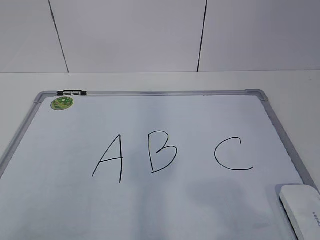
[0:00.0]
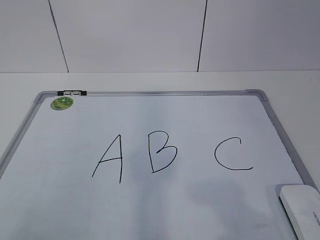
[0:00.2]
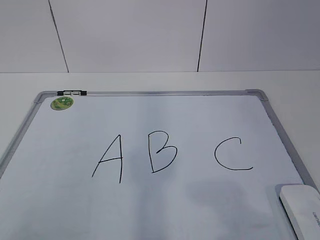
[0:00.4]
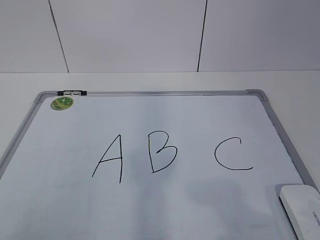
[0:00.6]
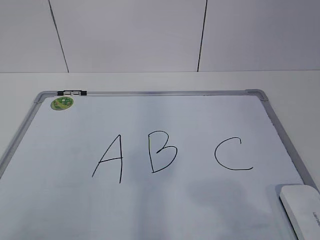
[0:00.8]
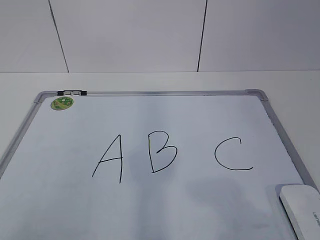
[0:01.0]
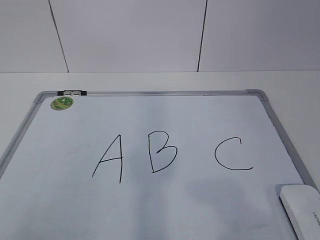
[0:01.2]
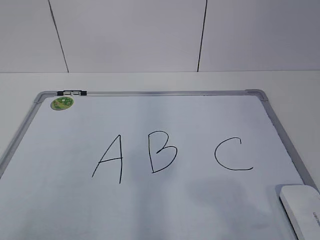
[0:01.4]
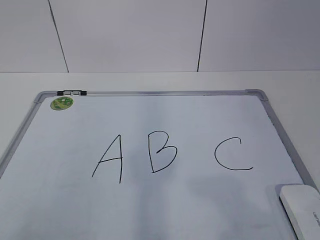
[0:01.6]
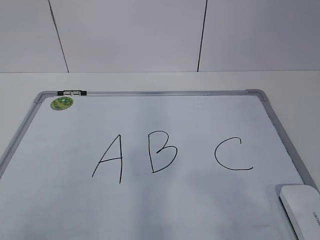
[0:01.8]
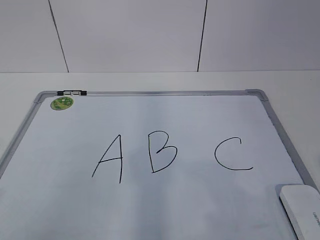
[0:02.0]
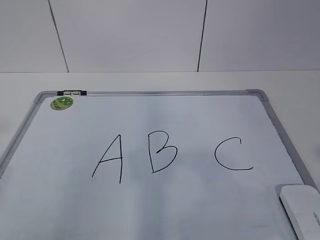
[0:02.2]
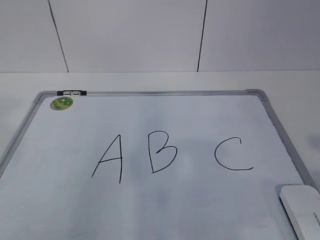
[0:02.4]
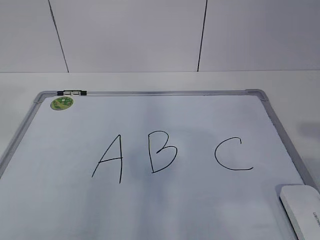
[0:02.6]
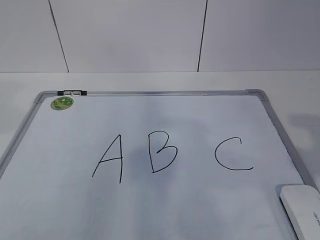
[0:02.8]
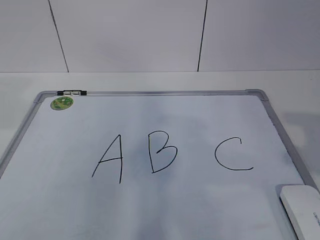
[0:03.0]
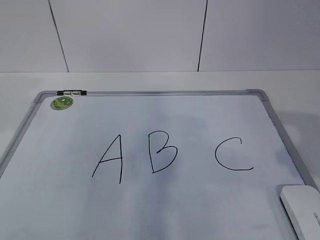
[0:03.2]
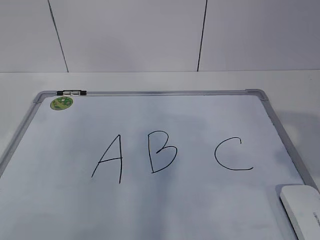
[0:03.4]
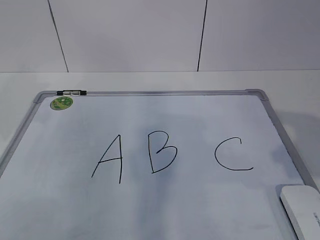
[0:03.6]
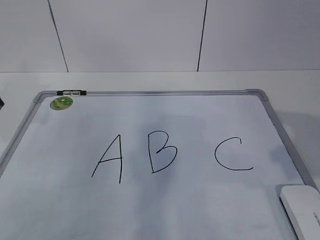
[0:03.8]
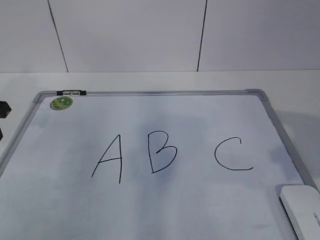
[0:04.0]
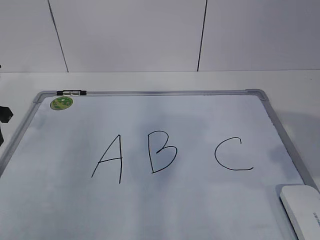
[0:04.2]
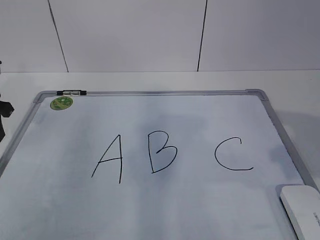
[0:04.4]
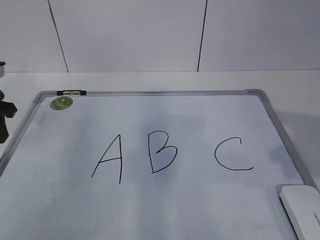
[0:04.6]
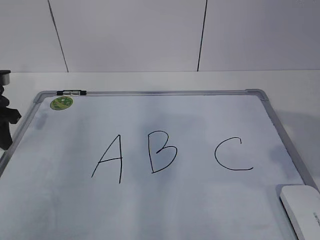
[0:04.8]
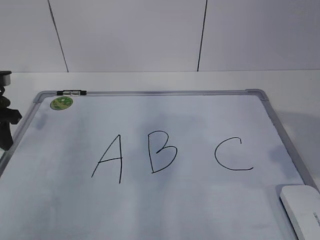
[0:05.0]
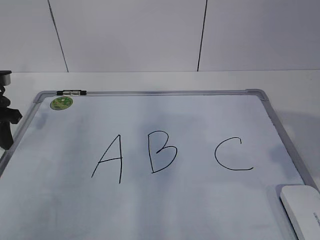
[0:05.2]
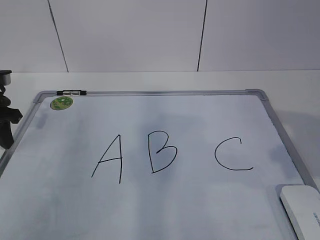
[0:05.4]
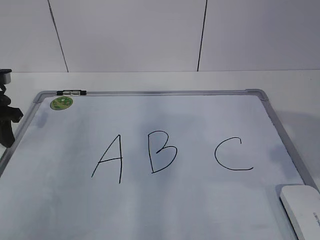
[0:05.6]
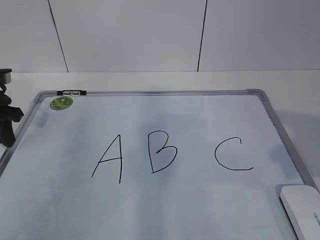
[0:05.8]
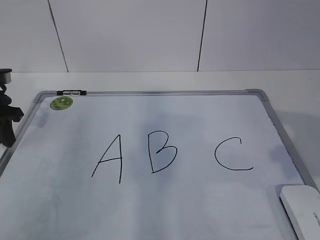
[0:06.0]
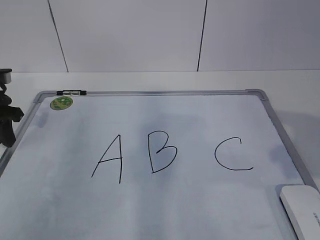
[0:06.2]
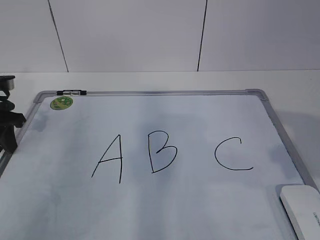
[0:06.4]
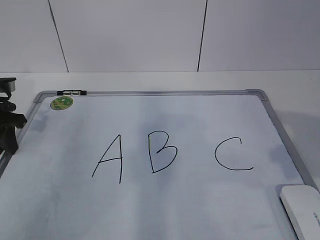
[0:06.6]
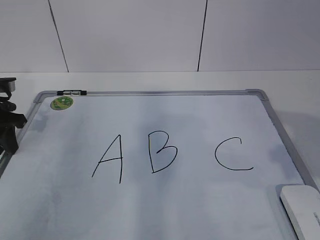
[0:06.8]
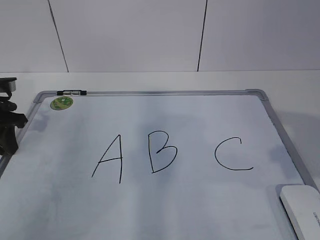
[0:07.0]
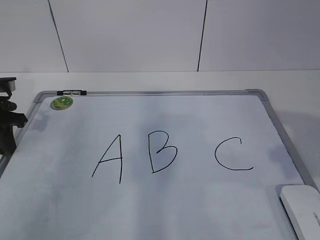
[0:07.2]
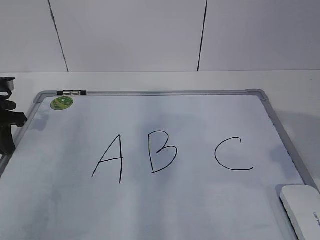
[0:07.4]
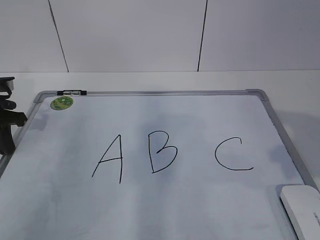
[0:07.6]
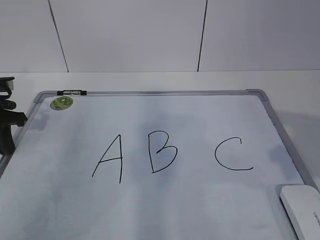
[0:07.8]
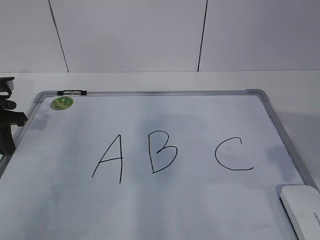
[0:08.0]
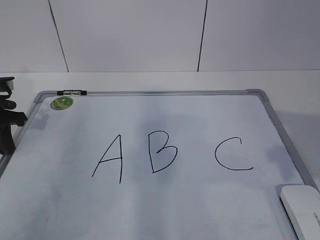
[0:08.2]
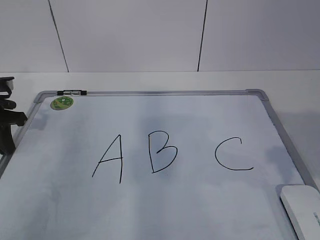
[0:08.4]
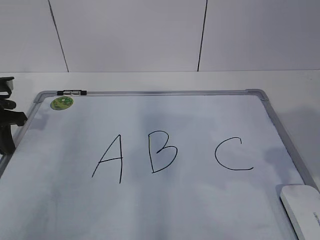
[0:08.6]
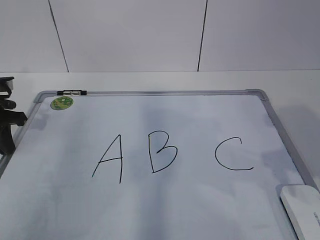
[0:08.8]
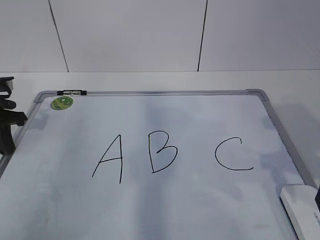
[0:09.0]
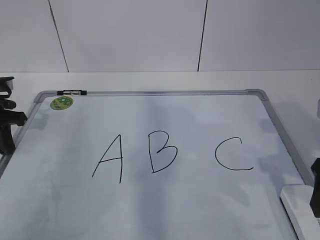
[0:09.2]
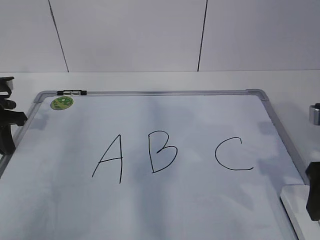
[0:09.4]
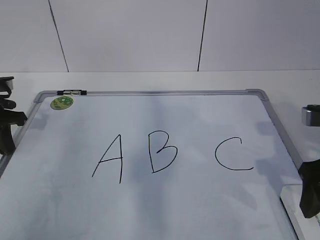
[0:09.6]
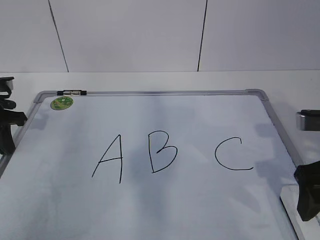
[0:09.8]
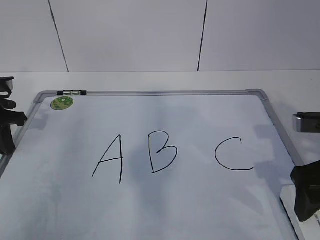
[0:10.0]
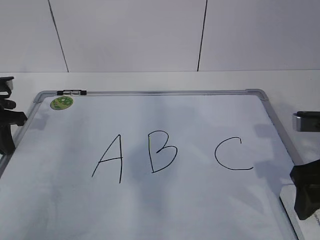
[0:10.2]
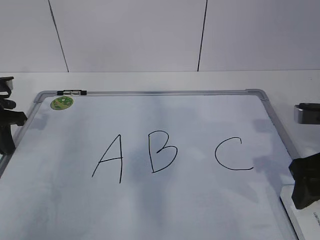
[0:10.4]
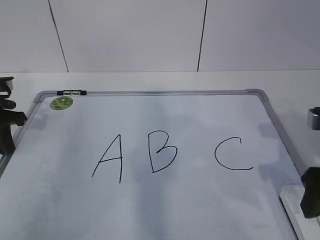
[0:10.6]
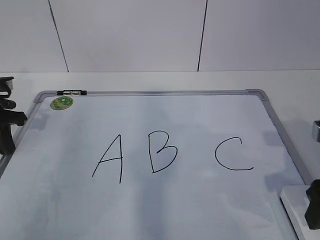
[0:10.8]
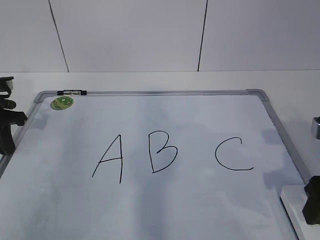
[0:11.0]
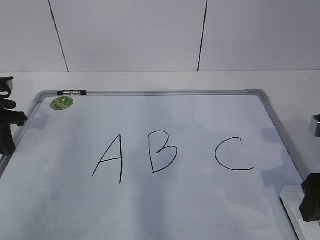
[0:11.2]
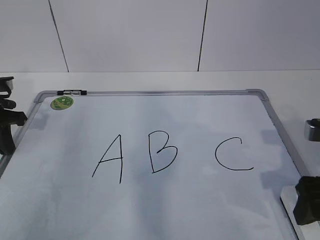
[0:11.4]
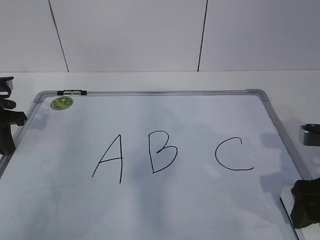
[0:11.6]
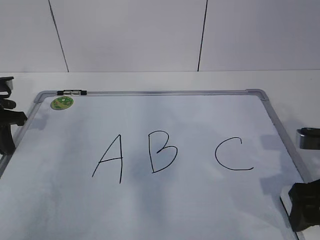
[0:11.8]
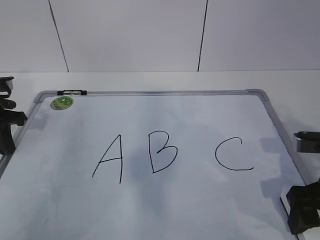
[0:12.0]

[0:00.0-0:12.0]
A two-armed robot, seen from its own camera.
Task of the whole recording: pick up the eraser on the blackboard and erase the letter "B".
Step, 0:06.4 to 0:10.6: Grab the eraser with your right hand.
0:01.6 to 0:03.0: The left gripper goes approximately 20 cm forward and upward. Meanwhile the right gripper heads forward and upward, covering about 10 cm.
0:03.0 to 0:04.4: The left gripper goes about 25 cm downward and forward.
0:04.4 to 0:06.0: There are only small adjustments of the grippers.
0:06.0 to 0:07.6: The left gripper closes up.
0:09.0 to 0:10.4: The right gripper changes place by roughly 5 cm, and closes.
0:10.4 to 0:12.0: The right gripper opens.

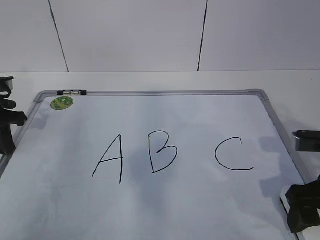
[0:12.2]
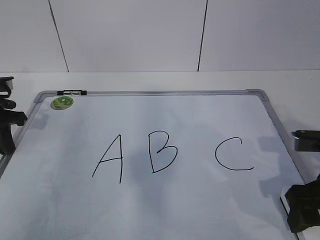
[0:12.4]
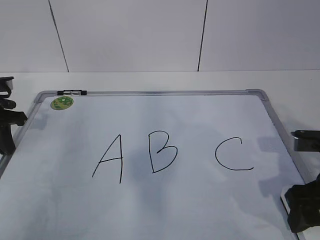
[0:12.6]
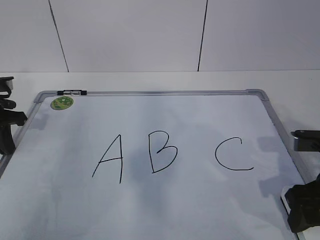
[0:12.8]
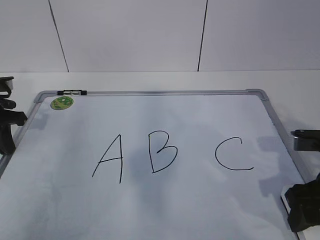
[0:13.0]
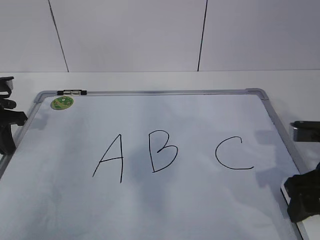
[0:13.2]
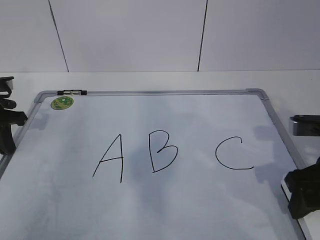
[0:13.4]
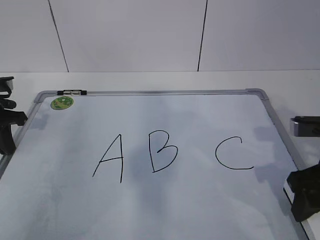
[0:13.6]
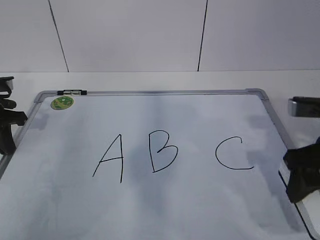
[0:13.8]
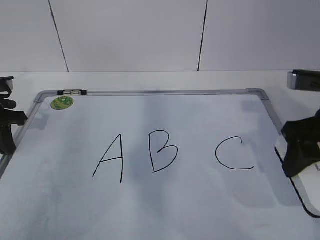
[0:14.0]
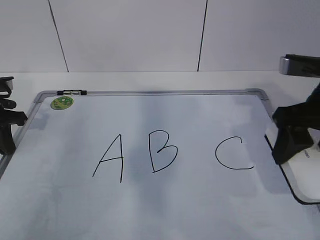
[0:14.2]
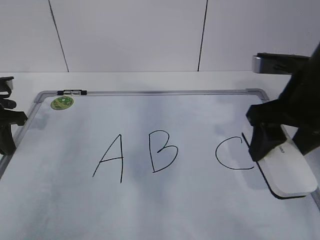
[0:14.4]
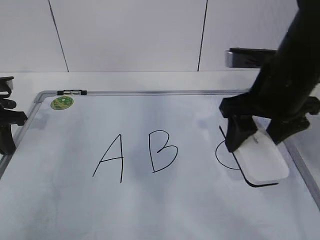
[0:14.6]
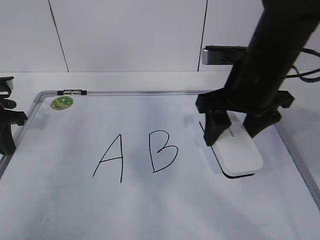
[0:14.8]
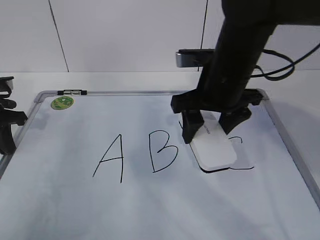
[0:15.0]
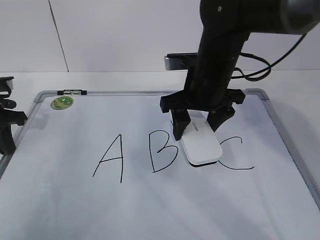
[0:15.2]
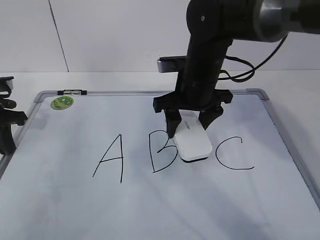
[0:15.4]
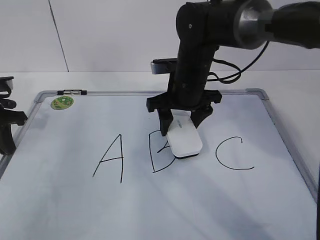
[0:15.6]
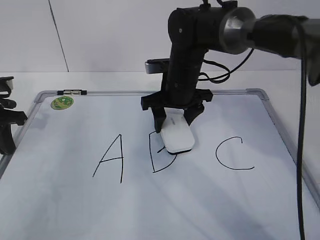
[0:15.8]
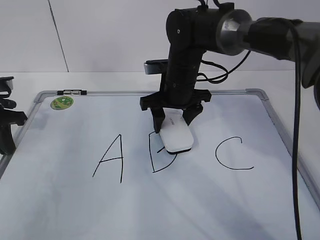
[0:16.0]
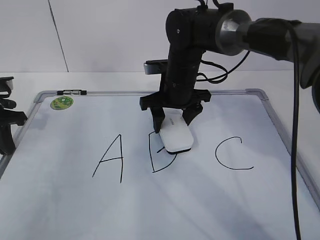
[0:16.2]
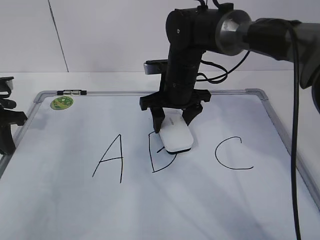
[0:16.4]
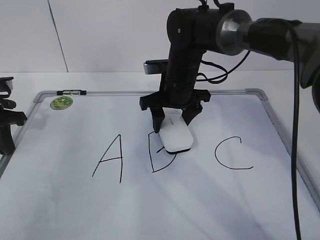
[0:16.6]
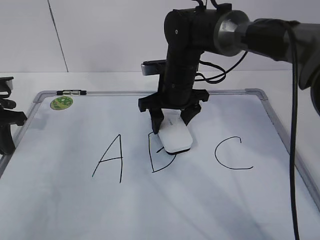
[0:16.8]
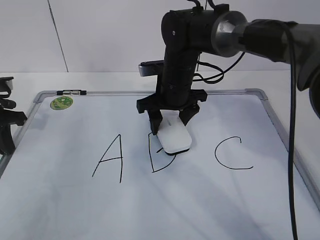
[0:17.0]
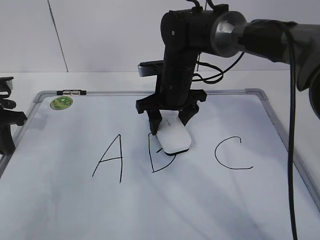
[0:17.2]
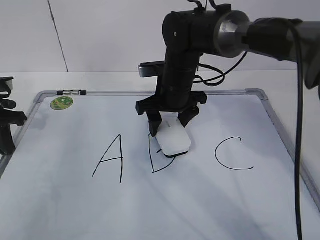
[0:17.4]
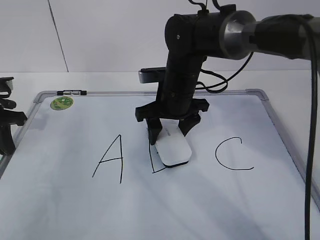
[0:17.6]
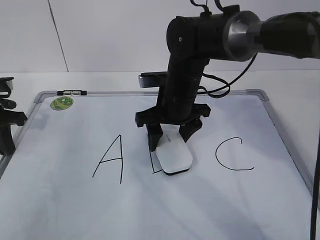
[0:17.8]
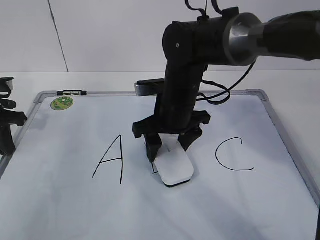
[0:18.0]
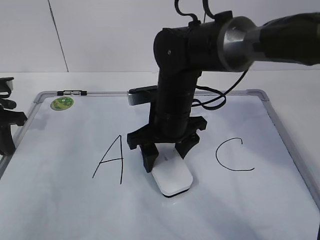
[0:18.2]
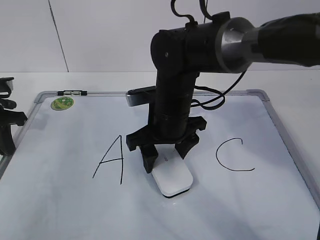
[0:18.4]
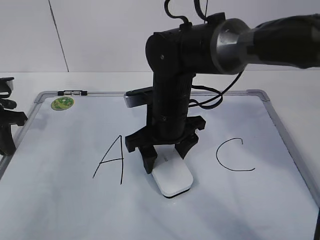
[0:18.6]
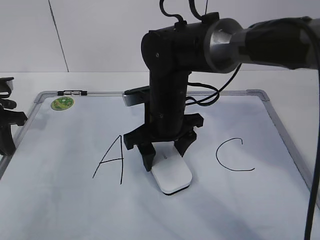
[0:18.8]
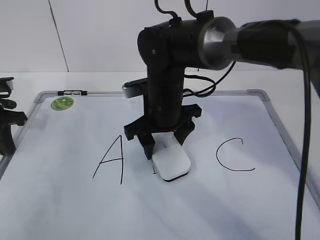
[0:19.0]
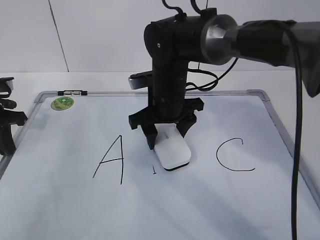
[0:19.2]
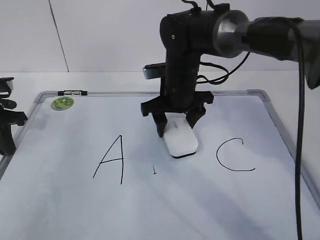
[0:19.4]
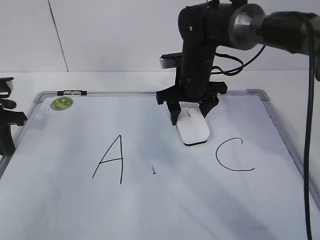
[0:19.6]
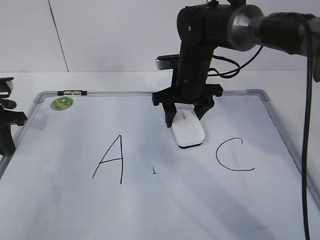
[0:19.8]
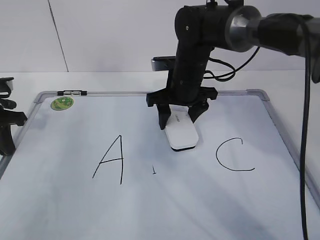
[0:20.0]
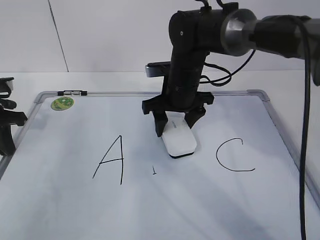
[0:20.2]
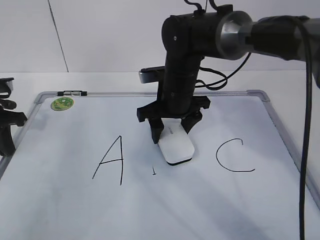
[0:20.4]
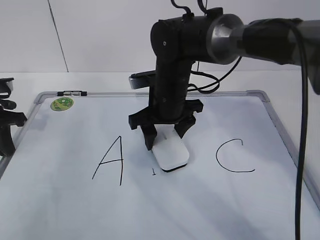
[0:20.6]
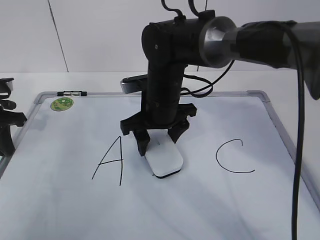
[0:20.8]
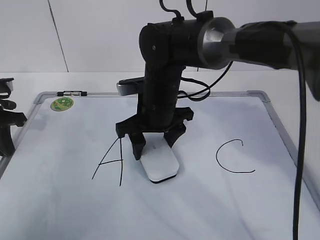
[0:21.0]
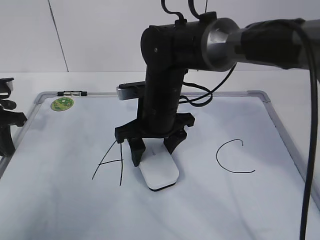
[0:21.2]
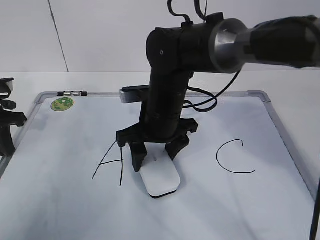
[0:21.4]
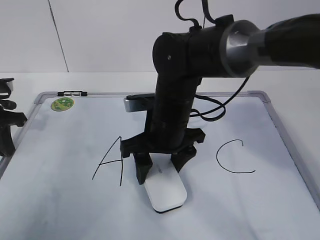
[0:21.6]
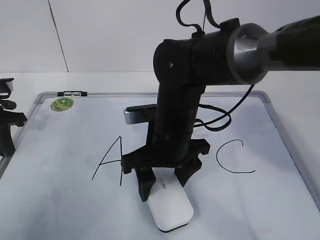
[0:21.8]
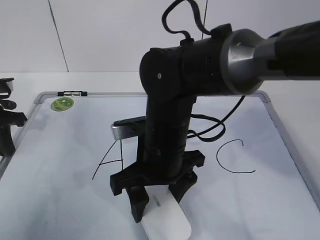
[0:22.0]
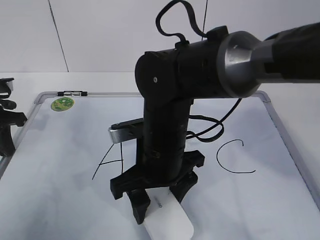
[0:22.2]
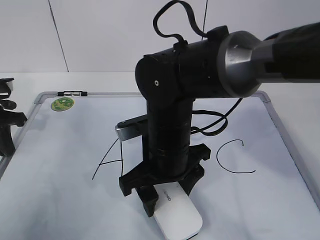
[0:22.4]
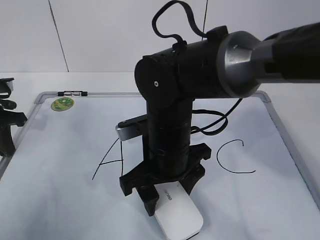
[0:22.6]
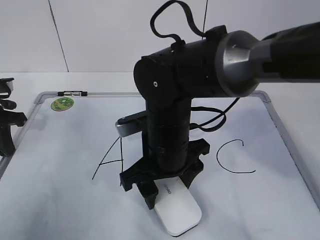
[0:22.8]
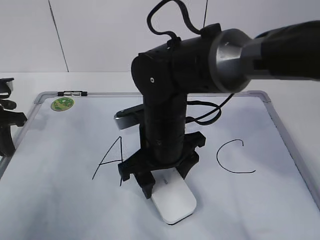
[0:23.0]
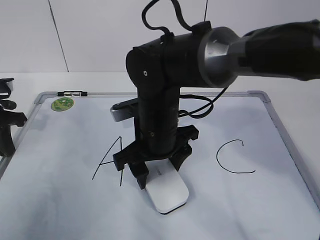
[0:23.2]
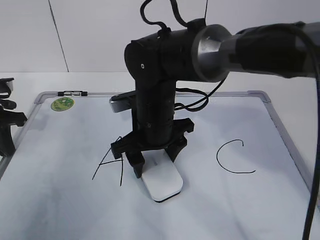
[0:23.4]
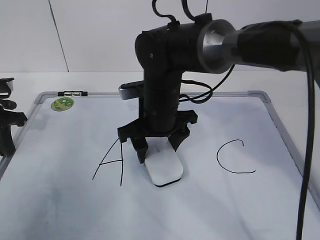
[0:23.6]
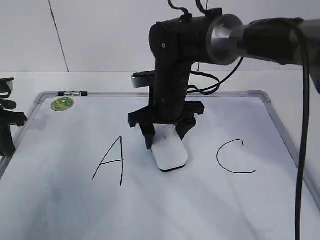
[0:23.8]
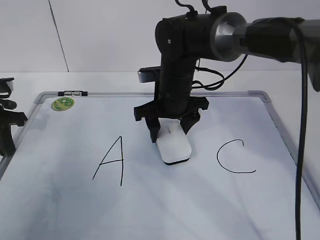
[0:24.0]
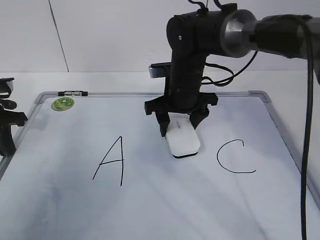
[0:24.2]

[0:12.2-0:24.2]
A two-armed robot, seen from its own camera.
Task of the whole recording: pick up the eraser on the blackboard and erase the letter "B".
Step, 0:12.2 to 0:20.4: Erase the letter B with your right hand.
0:12.2 to 0:13.8: The right gripper closes its fingers.
0:13.8 to 0:15.2: The right gripper goes roughly 20 cm to the left and forward.
0:15.2 to 0:16.6: The right gripper heads forward and downward, covering approximately 10 cm.
0:16.6 to 0:18.2: The right gripper travels backward by roughly 10 cm.
0:18.2 to 0:19.8: The right gripper goes some 10 cm forward.
0:19.8 to 0:21.2: The right gripper travels backward and to the left by approximately 10 cm.
0:21.2 to 0:22.6: The right gripper moves backward, about 10 cm.
0:22.6 to 0:24.2: The right gripper moves forward, approximately 15 cm.
